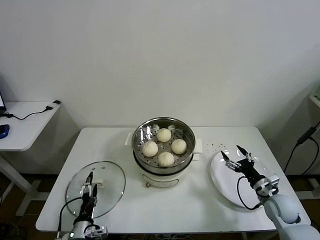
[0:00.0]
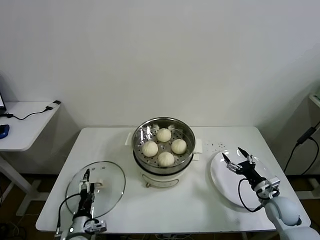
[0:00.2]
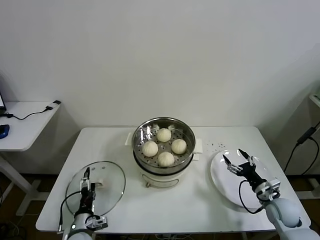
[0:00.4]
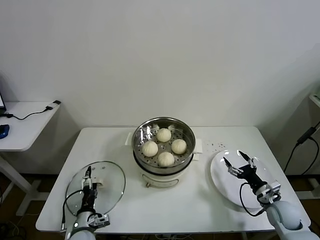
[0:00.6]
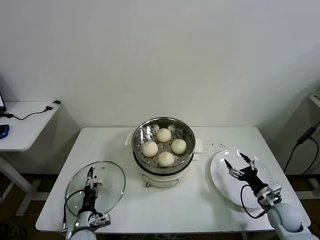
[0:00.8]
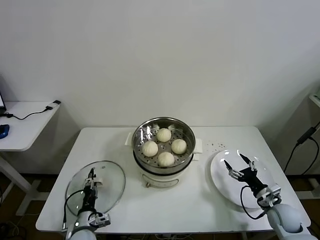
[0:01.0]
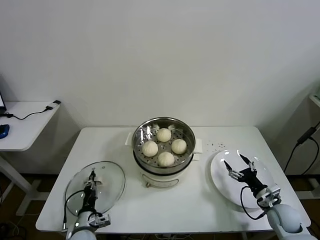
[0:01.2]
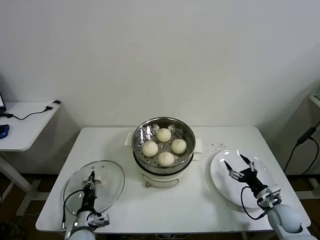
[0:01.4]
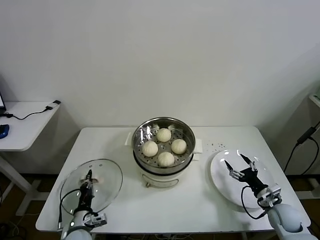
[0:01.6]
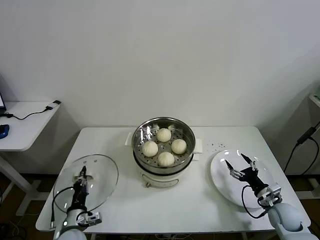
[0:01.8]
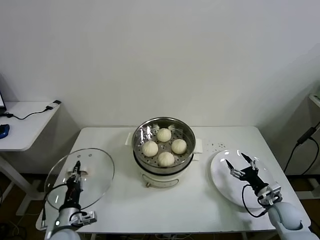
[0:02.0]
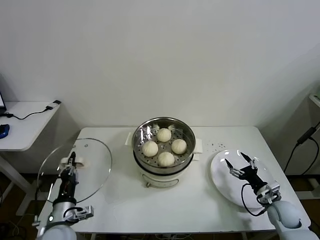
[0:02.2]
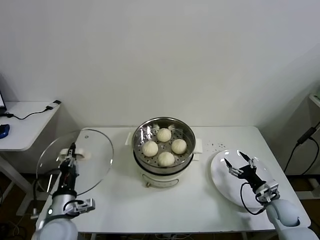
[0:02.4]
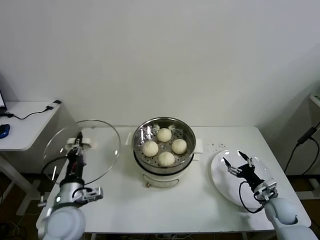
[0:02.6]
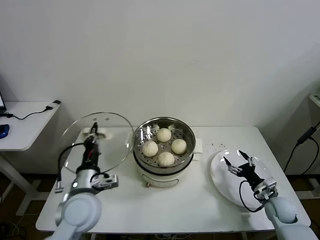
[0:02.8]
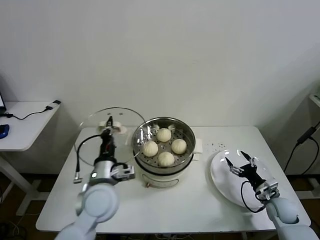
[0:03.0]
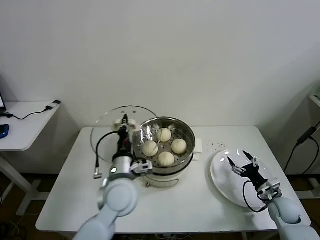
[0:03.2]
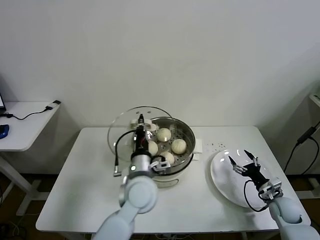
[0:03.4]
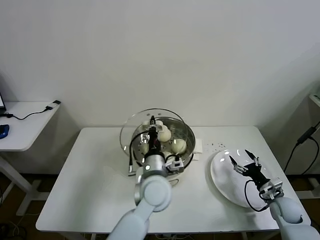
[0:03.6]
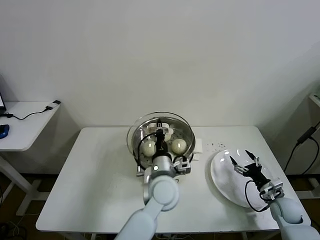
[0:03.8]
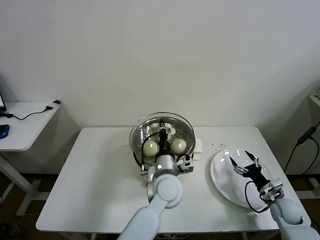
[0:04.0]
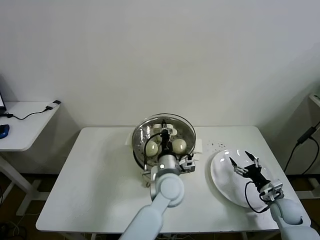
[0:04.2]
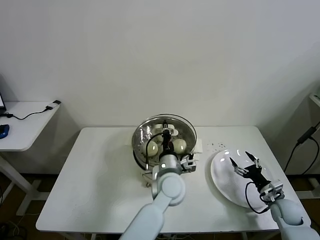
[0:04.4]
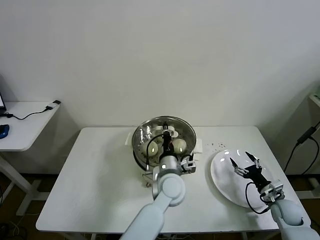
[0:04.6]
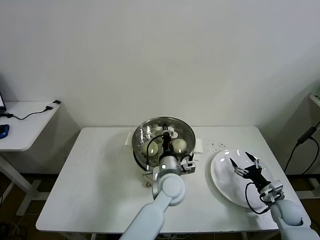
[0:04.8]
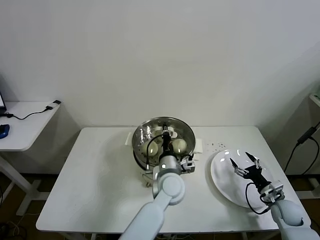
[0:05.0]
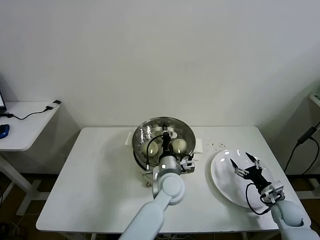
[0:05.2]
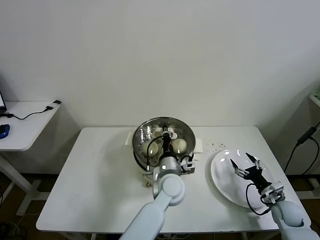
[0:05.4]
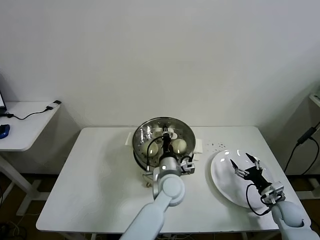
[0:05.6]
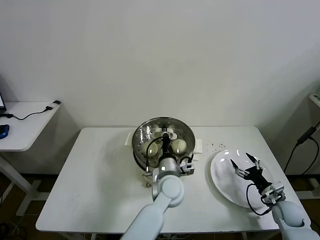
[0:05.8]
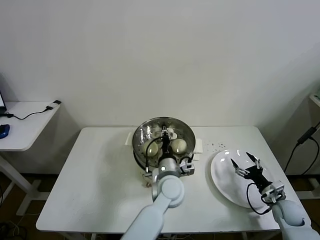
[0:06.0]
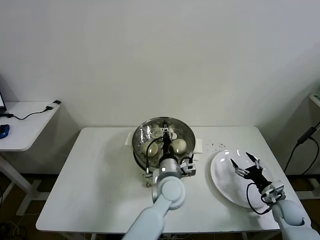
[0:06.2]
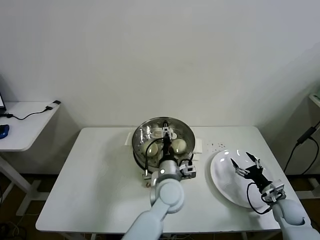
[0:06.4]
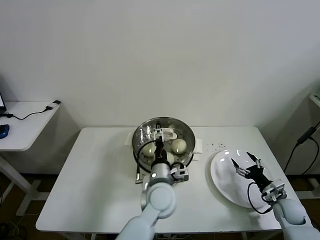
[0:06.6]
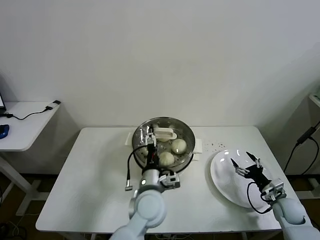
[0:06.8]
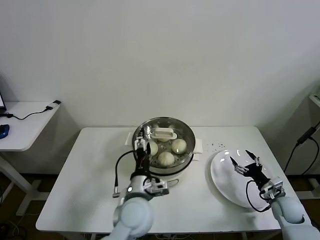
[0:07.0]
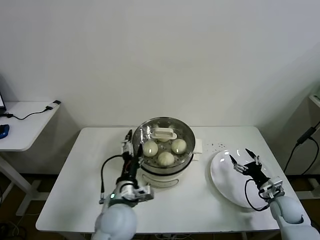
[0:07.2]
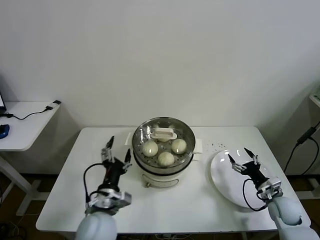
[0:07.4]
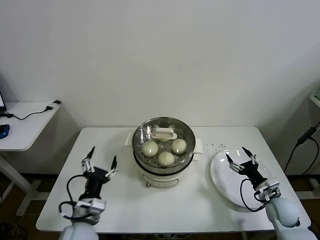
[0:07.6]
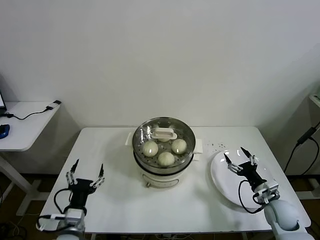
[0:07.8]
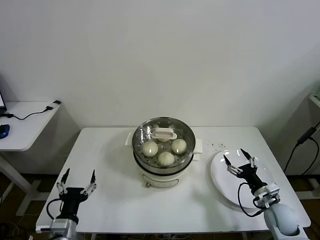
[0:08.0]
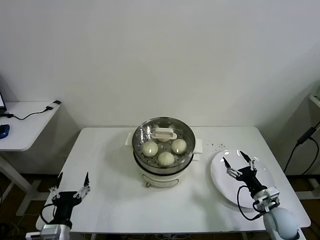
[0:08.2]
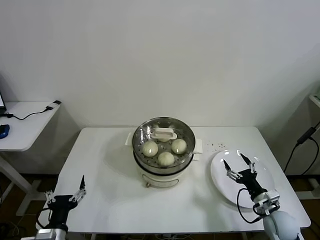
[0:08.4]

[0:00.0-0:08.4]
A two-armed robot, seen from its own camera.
Task of the whole recording: take steamed baozi put them in steamer then cover it.
Step, 0:01.6 to 0:06.2: Place the pot lid on the steamer with left gripper.
0:00.0 to 0:01.4: The left gripper ends up some 5 cm from where it was, and closes up.
0:01.4 to 0:02.8: The left gripper moves upward, about 20 cm.
0:02.8 to 0:04.2: The left gripper goes approximately 25 cm to the right.
0:04.2 to 0:05.6: The grippers stay close to where they were, moving slightly.
0:05.6 to 0:07.0: The left gripper shifts some 10 cm to the left and backward, and opens its fingers.
0:07.0 to 0:08.4: The left gripper heads to the left and backward, covering roughly 30 cm. Meanwhile the right gripper heads to the left, covering approximately 5 cm.
